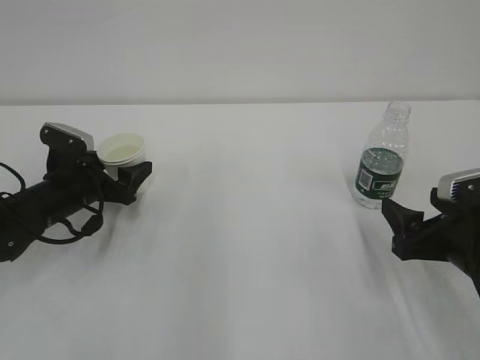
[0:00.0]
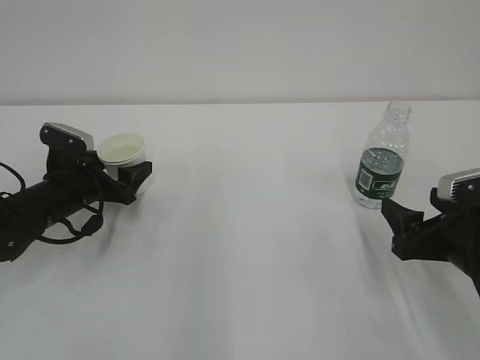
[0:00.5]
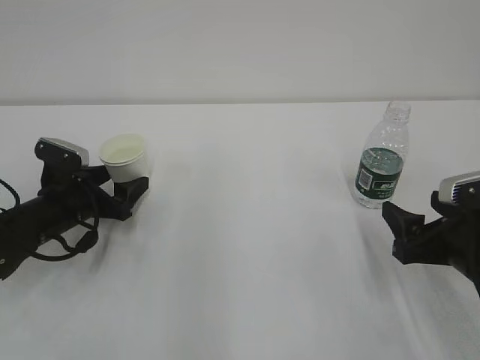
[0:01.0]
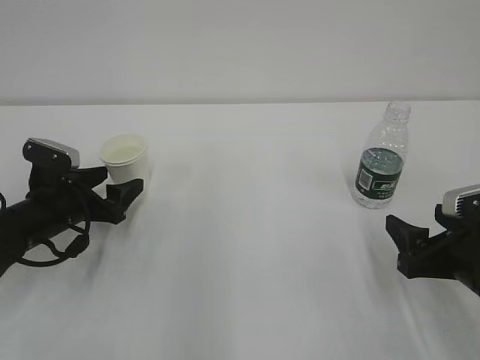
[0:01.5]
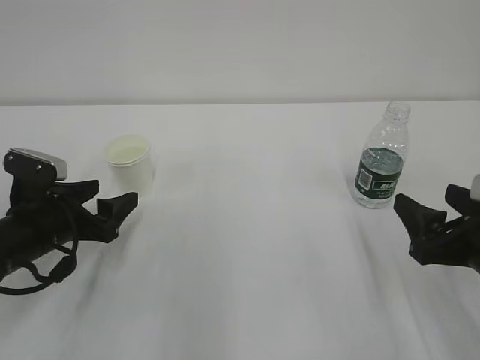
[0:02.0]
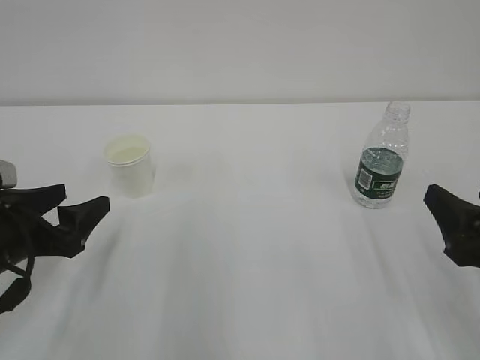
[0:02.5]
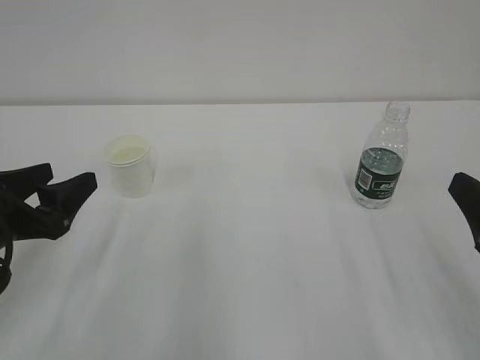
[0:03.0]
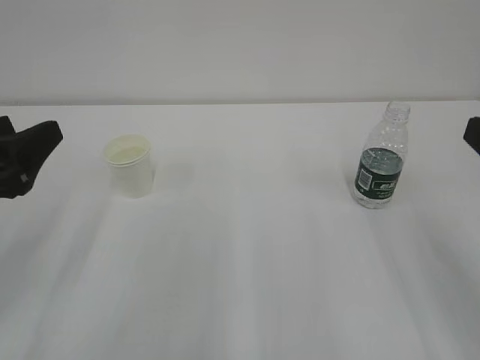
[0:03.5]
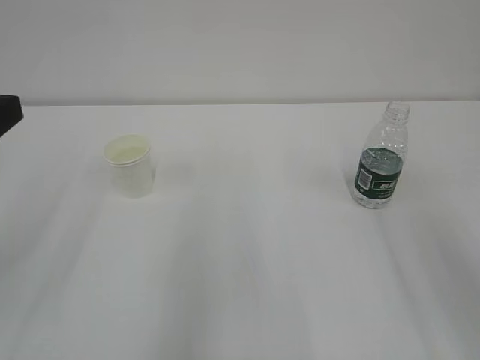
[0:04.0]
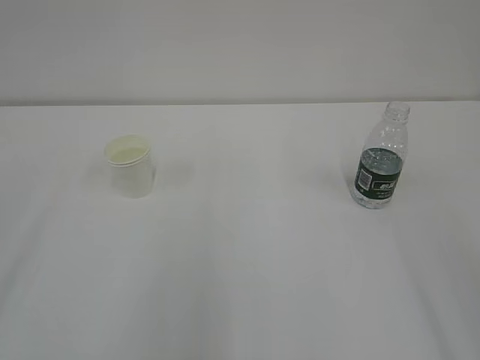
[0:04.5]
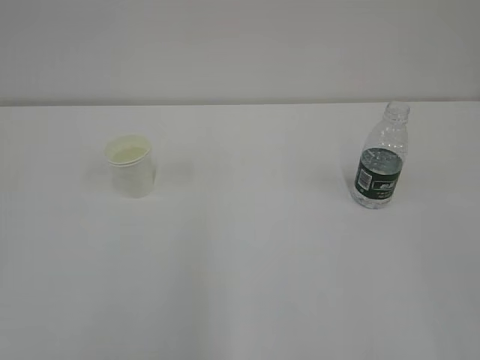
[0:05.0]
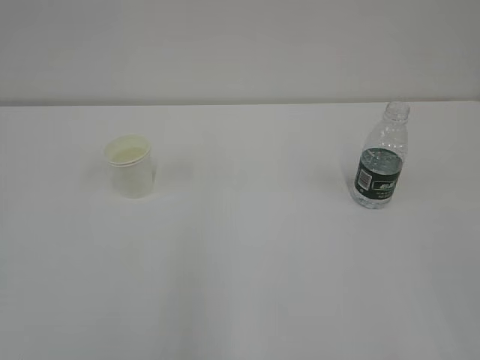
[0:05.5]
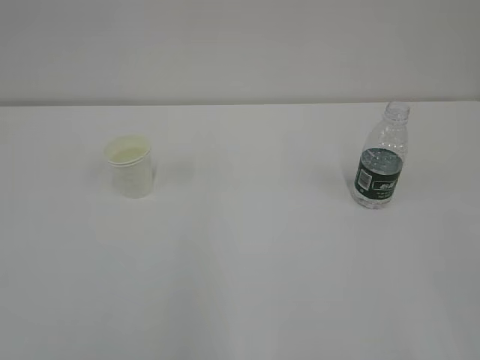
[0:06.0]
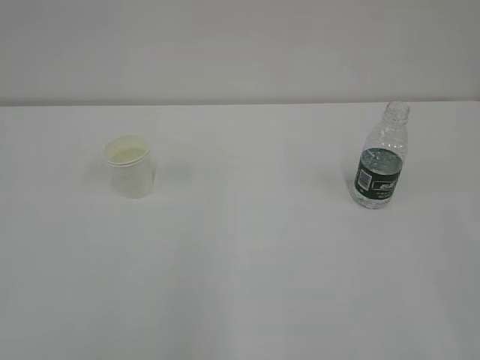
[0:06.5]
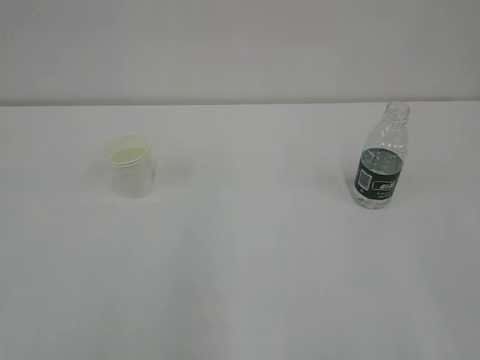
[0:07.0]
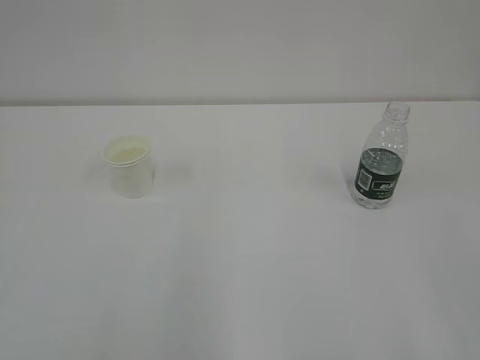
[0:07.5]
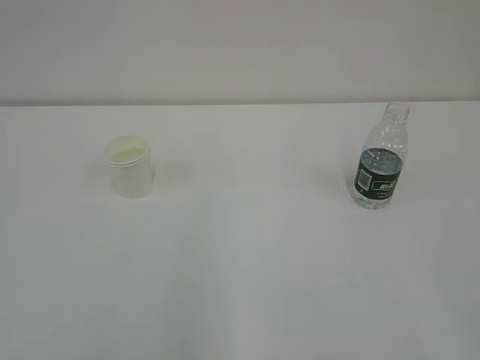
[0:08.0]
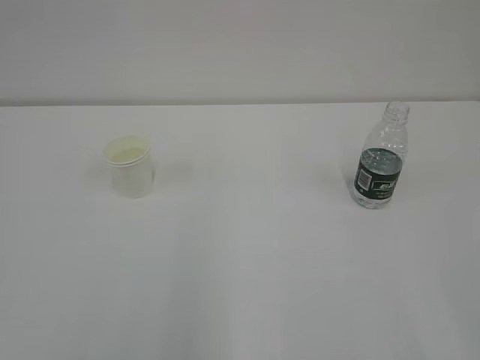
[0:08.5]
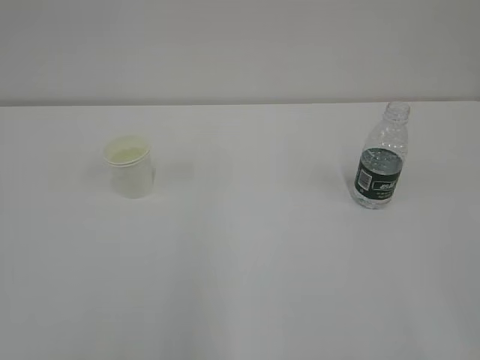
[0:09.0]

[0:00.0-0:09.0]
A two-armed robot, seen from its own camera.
0:00.0 to 0:02.0: The left gripper travels backward by about 10 cm.
0:02.0 to 0:04.5: Both grippers move upward and backward, some 30 cm.
